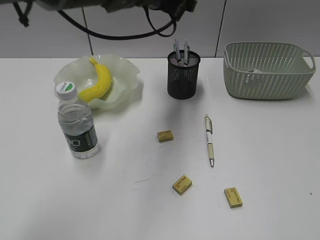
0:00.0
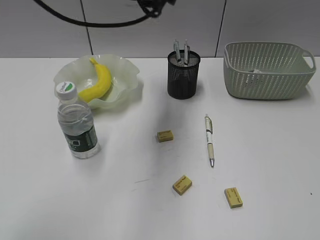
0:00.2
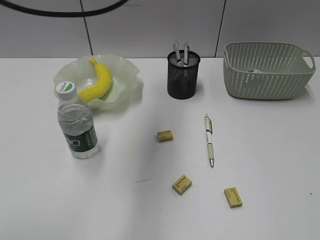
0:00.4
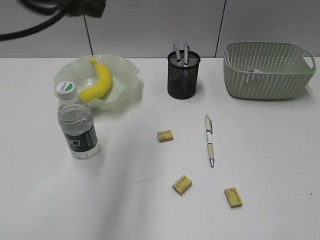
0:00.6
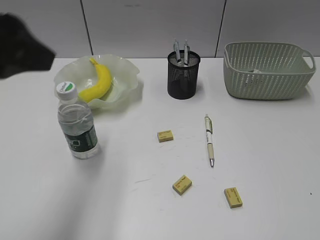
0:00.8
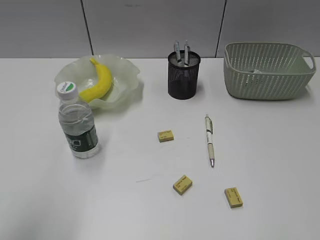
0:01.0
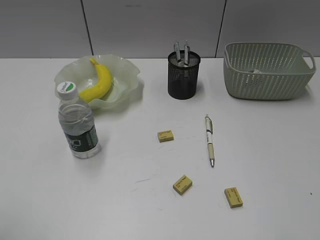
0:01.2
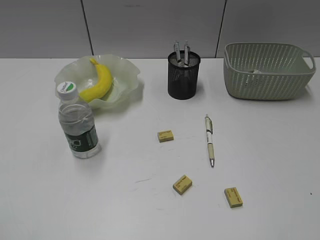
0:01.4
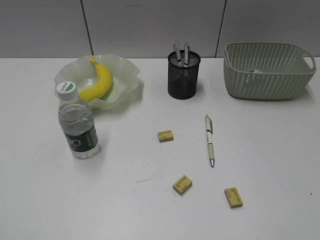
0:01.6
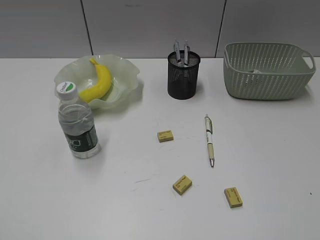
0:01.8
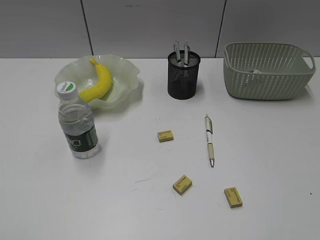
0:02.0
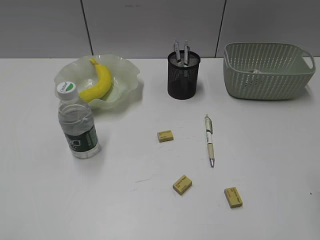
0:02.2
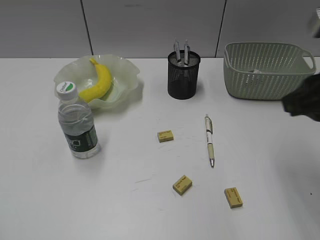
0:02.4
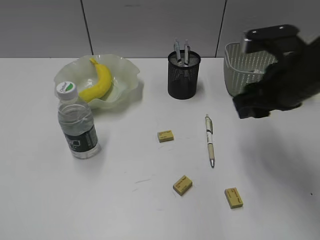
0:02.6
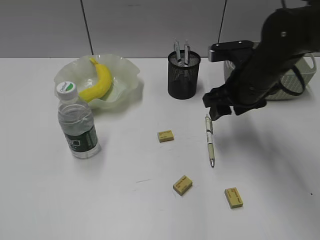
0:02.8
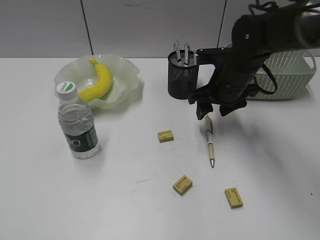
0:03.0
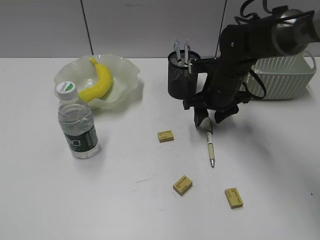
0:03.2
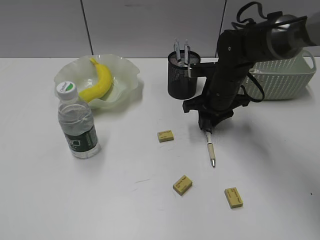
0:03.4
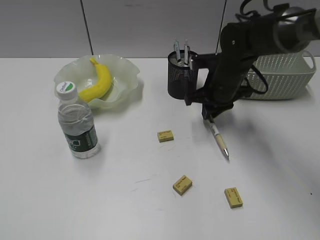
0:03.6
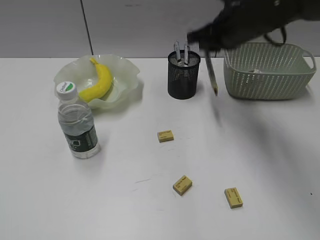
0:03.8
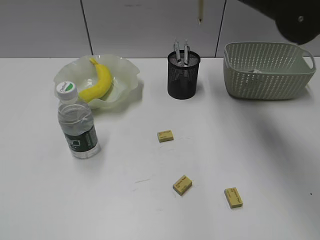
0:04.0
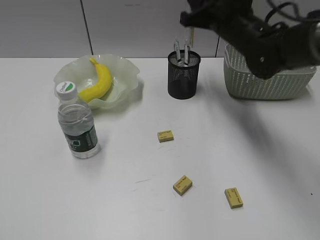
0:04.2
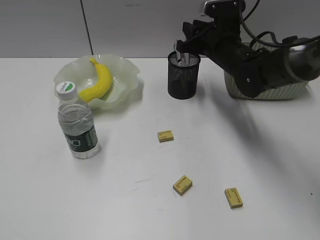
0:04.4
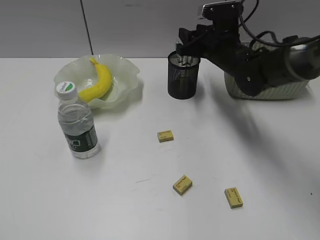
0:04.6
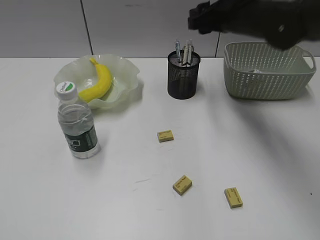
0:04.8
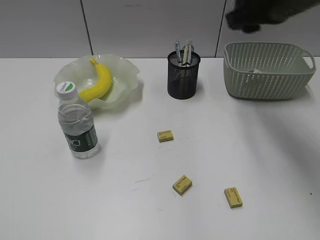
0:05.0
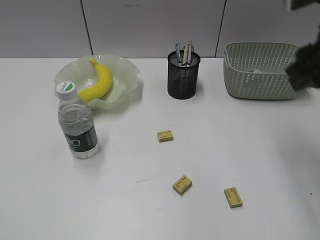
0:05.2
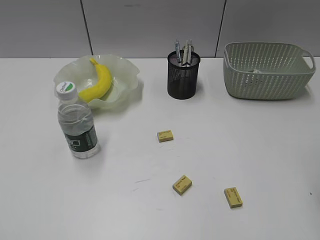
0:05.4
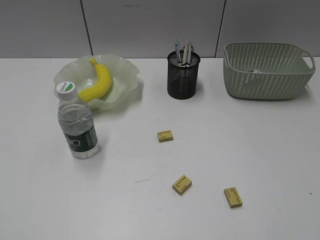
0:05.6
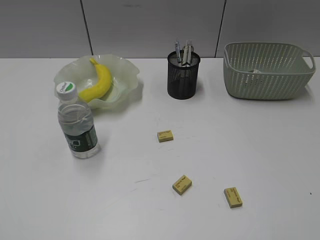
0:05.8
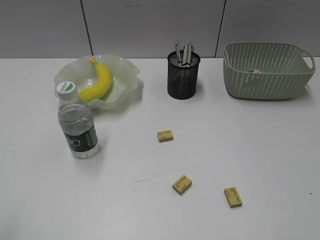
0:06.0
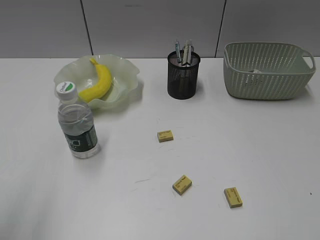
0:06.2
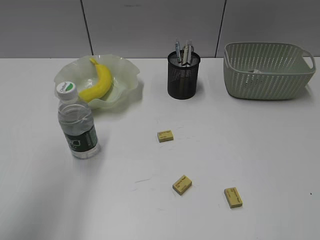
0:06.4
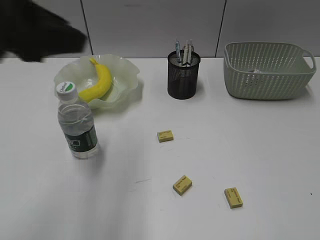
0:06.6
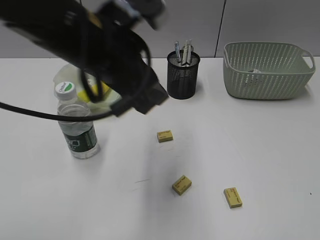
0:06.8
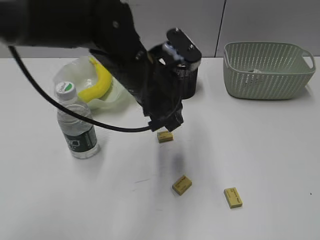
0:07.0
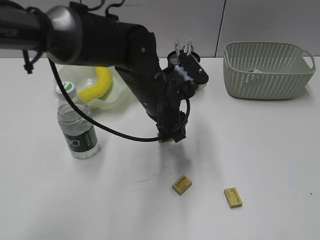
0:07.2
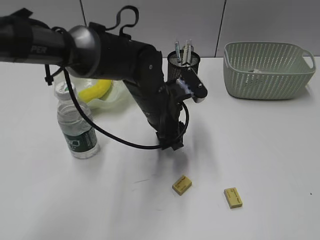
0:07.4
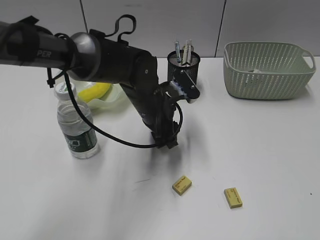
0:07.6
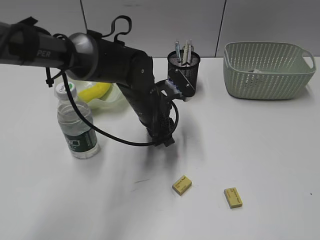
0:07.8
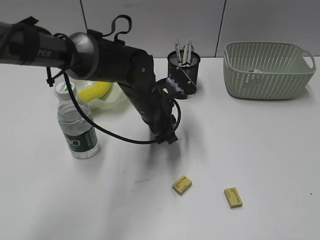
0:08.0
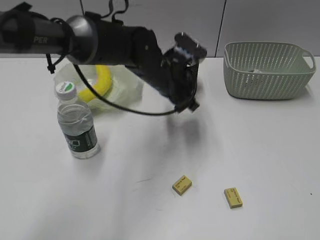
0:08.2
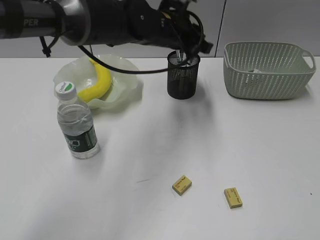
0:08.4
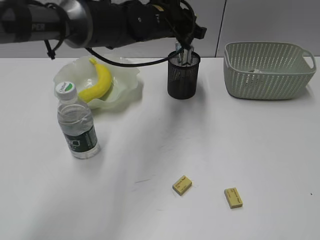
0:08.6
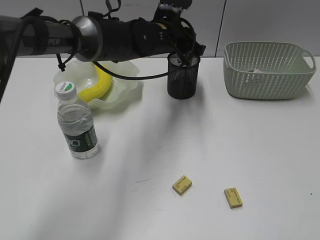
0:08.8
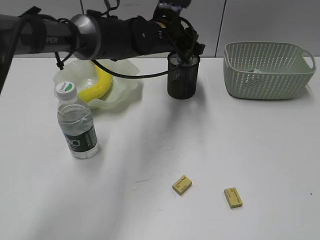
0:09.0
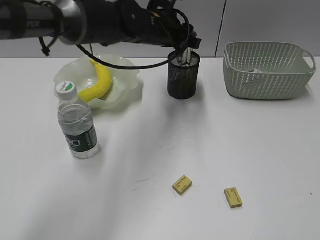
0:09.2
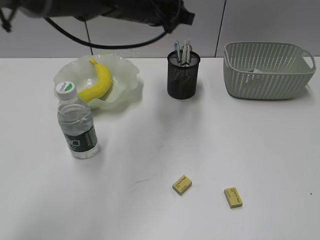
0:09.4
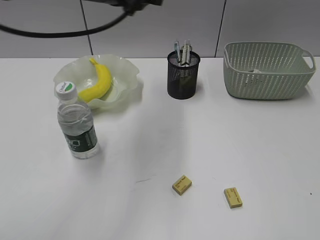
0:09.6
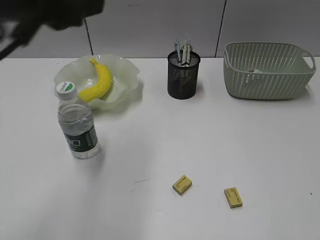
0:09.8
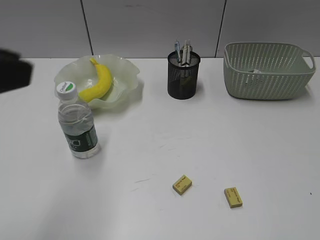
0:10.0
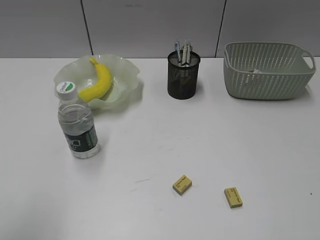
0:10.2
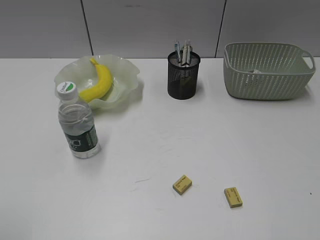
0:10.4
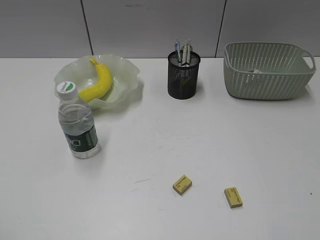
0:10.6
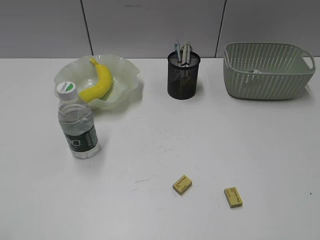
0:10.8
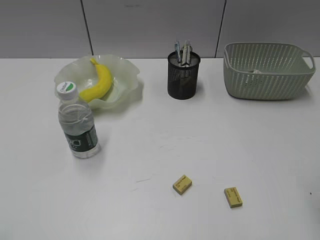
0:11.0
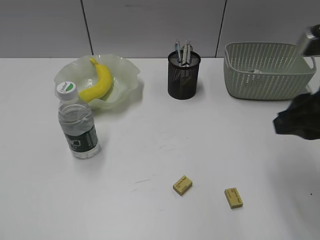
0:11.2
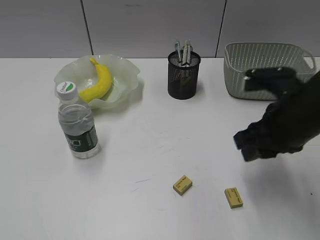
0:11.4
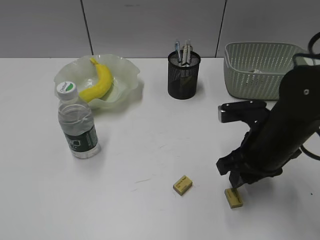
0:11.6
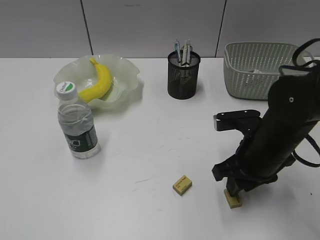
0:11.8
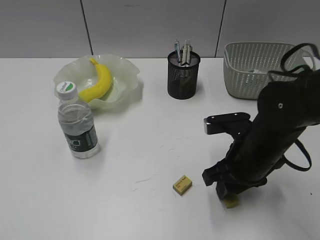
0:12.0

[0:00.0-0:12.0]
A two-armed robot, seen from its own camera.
Step, 0:00.0 to 0:03.4: Grasp the yellow pen with right gripper.
Step, 0:03.6 to 0:04.6: Place the yellow pen in pen holder with right gripper.
Step, 0:04.8 to 0:07.8: Grasp the eraser with left gripper.
Step, 0:08.0 to 0:09.0: Place the eraser in pen holder with left gripper.
0:00.0 to 0:01.6: The left gripper travels backward and to the left by some 50 cm, and opens.
0:01.6 to 0:03.0: The right gripper goes some 40 cm forward and to the left, and opens up.
0:03.0 to 0:04.4: The right gripper goes up and down, roughly 20 cm each way, reversing 2 times, and closes.
0:04.4 to 0:06.0: The right gripper travels backward and to the right by roughly 50 cm, and opens, then closes again.
0:06.0 to 0:07.6: The left gripper is displaced forward, to the right and downward by some 50 cm.
0:07.6 to 0:09.0: The left gripper goes roughly 10 cm forward and upward, and closes, then reopens.
0:09.0 to 0:10.4: The left gripper shifts some 50 cm backward and to the left.
0:10.4 to 0:12.0: The right gripper shifts roughly 35 cm forward, downward and to the left, while the left gripper shifts by roughly 5 cm.

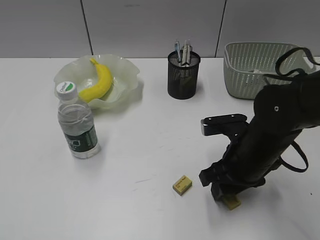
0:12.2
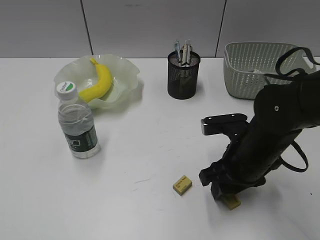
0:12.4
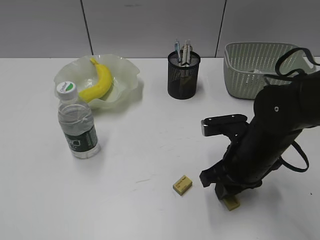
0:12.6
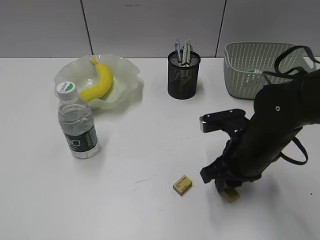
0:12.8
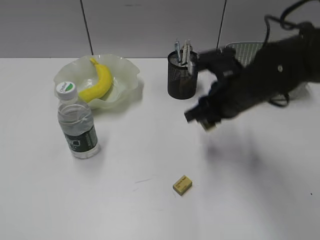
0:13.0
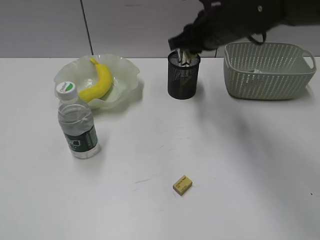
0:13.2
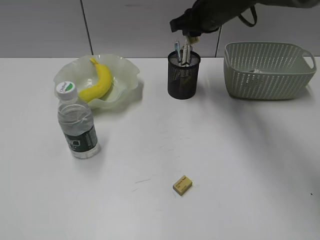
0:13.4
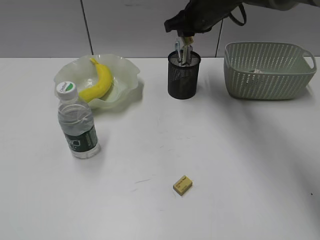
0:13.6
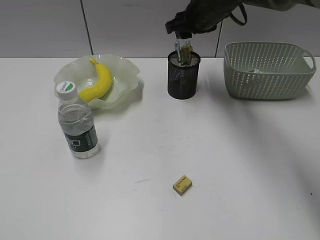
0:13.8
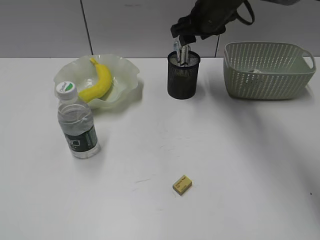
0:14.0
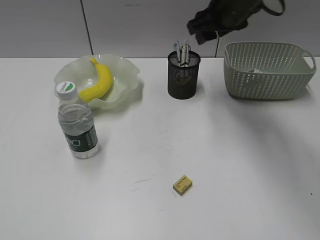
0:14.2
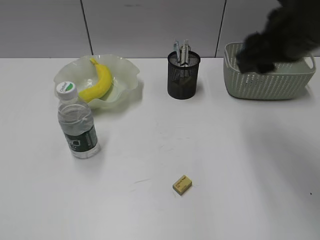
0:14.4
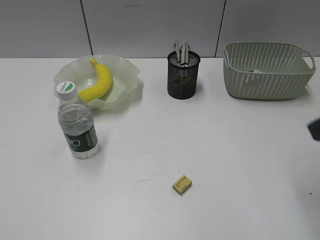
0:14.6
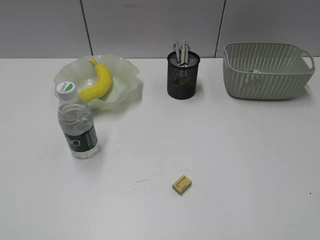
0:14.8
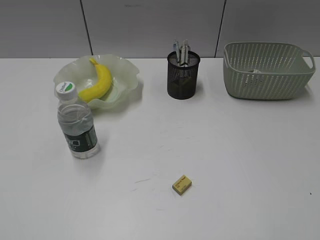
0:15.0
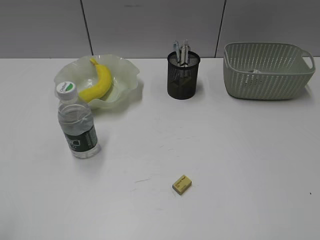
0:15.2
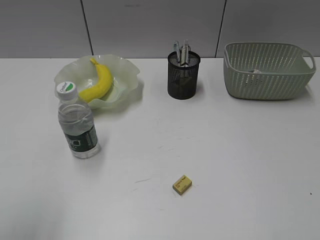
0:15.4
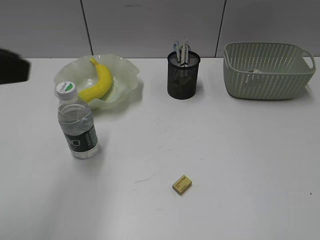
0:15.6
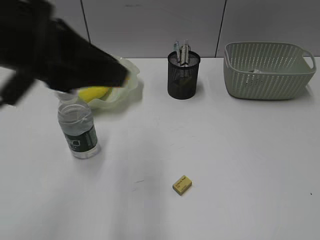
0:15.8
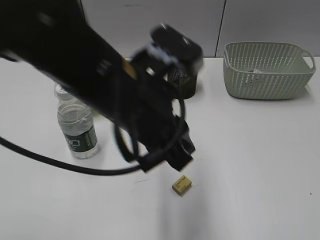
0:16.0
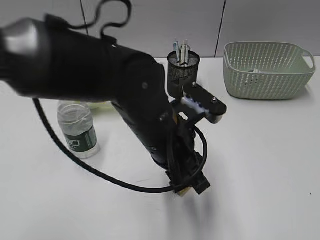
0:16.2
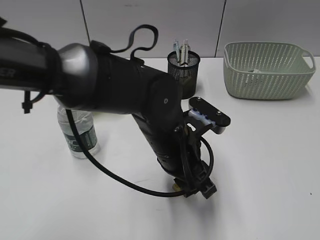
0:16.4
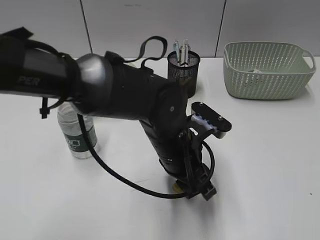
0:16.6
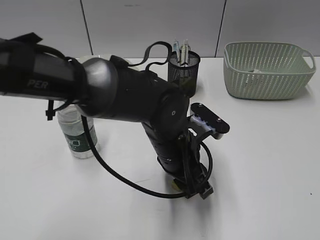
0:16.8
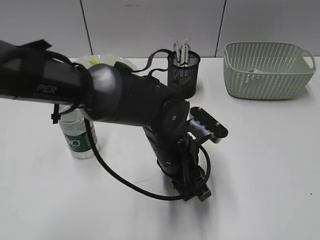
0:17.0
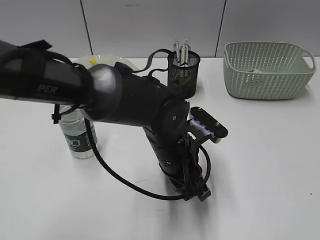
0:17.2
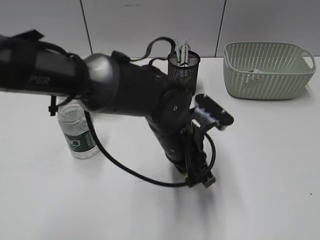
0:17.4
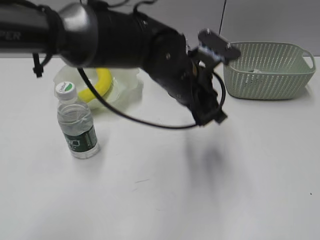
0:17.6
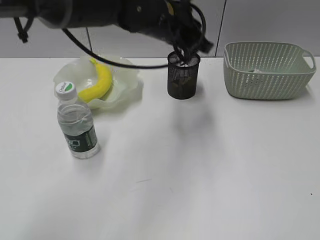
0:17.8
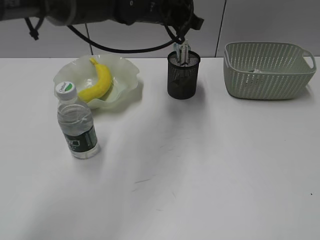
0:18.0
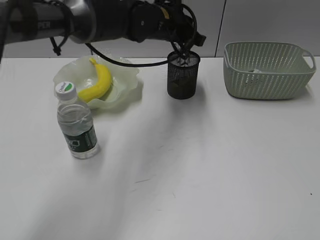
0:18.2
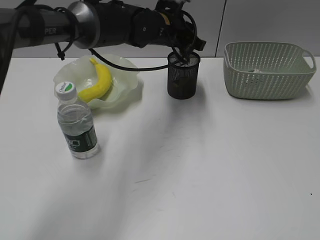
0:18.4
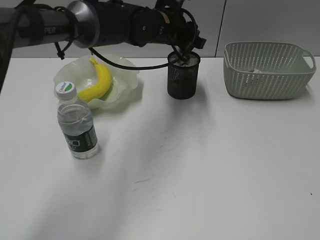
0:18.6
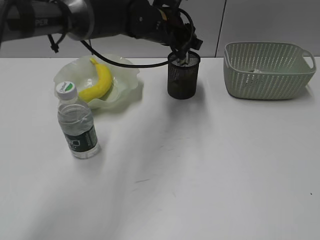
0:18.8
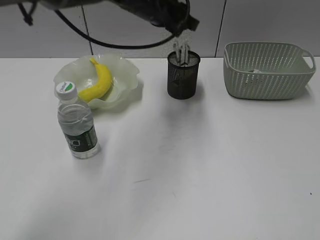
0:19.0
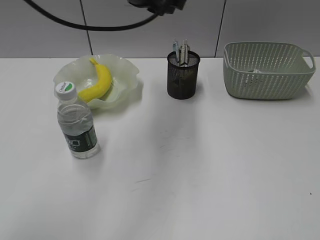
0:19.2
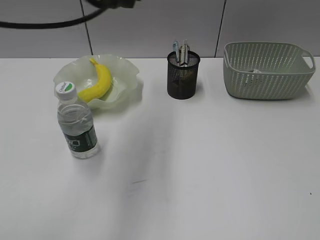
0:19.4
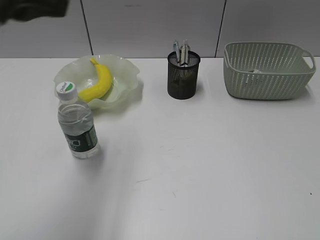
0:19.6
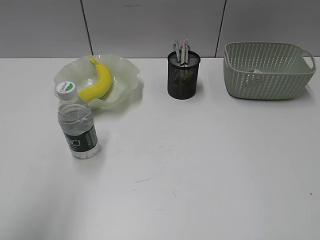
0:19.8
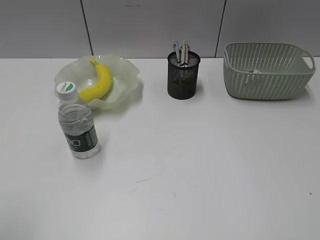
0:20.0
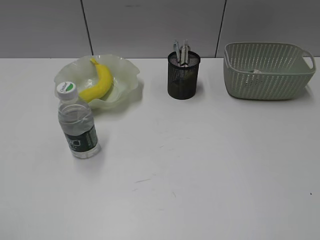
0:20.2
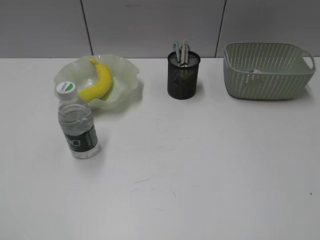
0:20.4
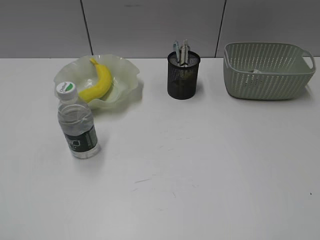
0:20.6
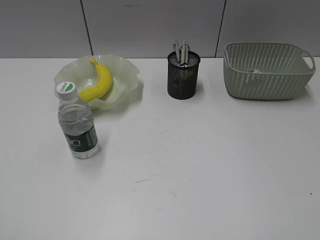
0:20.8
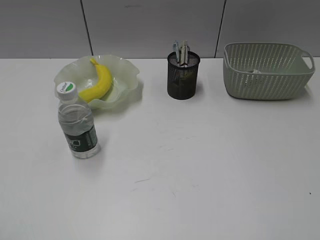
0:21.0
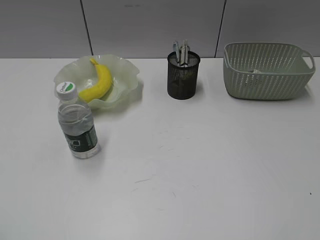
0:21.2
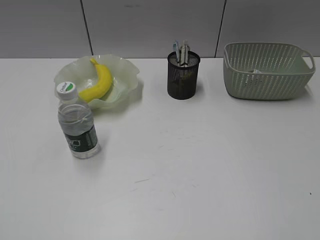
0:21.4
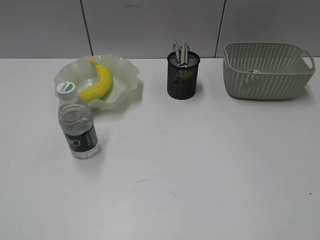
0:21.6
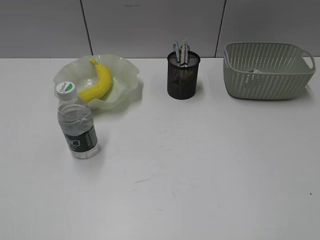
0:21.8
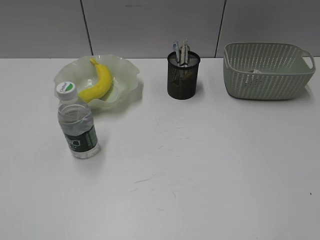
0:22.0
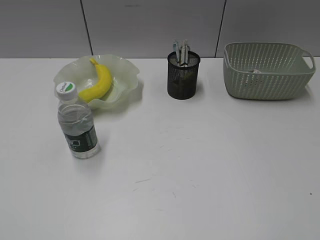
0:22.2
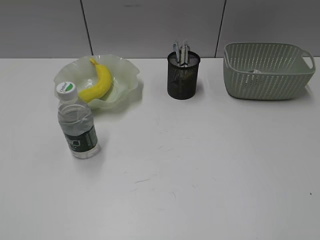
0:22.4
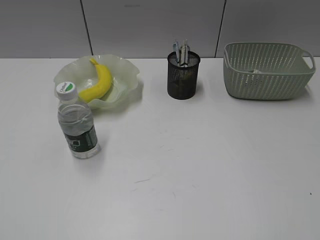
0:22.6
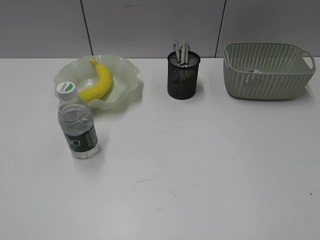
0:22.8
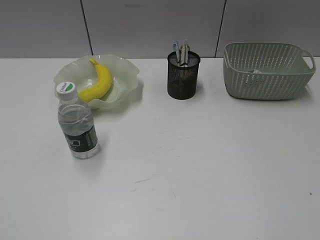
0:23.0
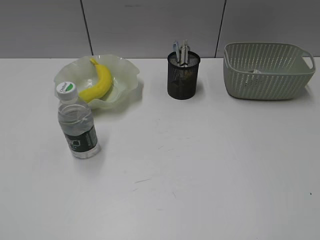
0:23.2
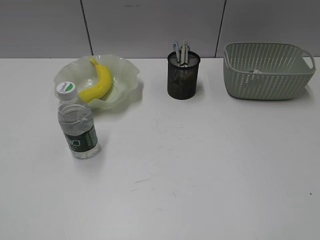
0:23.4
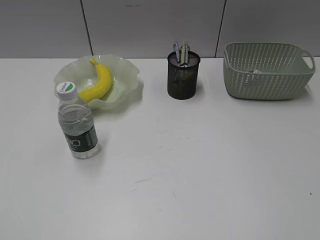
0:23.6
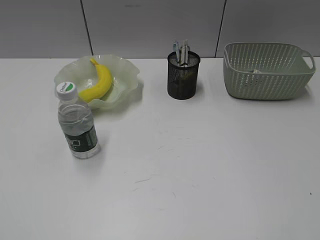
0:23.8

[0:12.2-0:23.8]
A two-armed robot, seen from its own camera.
Step, 0:12.8 to 0:13.8: Place the eraser in pen holder with right gripper.
Step, 0:14.0 to 0:17.2: Grasp the eraser with left gripper.
Step, 0:17.4 to 0:18.8: Place the eraser in pen holder with left gripper.
0:12.2 to 0:13.6: The right gripper heads forward and upward, covering roughly 25 cm, and closes.
0:13.6 to 0:15.0: The right gripper moves backward and to the right, roughly 50 cm, and opens up.
0:15.0 to 0:16.6: The left gripper heads to the right, forward and downward, covering roughly 50 cm.
0:16.6 to 0:18.0: The left gripper moves forward and upward, approximately 25 cm, and closes its fingers.
0:18.0 to 0:19.4: The left gripper is displaced backward, to the left and upward by approximately 15 cm.
0:19.4 to 0:21.0: The left gripper heads backward and to the left, covering about 40 cm.
0:22.4 to 0:23.8: Both grippers stay about where they are.
